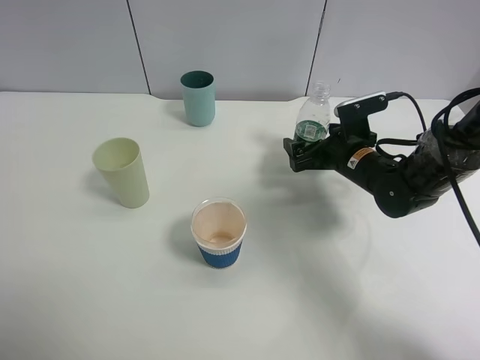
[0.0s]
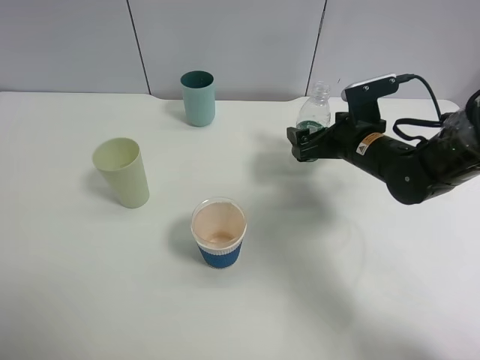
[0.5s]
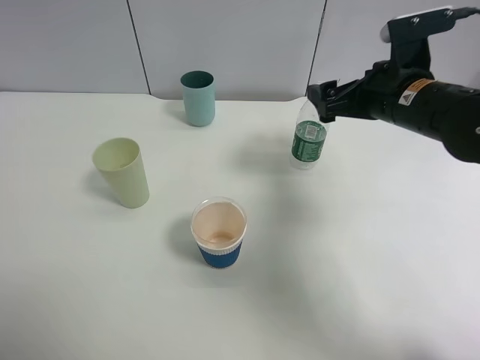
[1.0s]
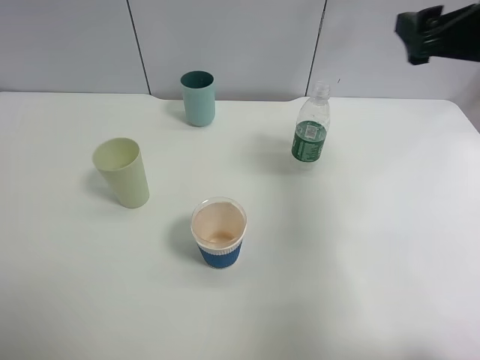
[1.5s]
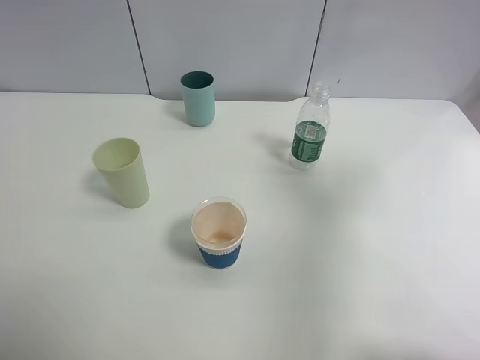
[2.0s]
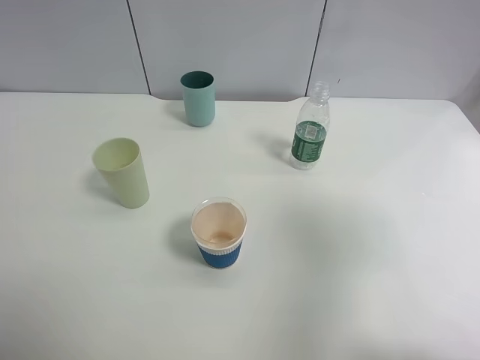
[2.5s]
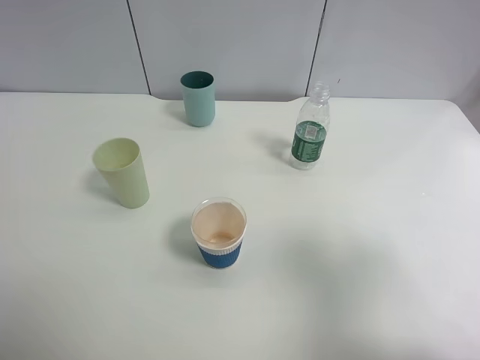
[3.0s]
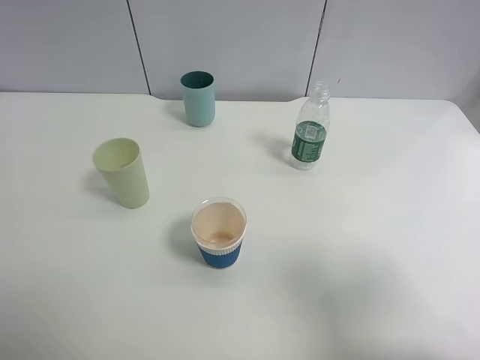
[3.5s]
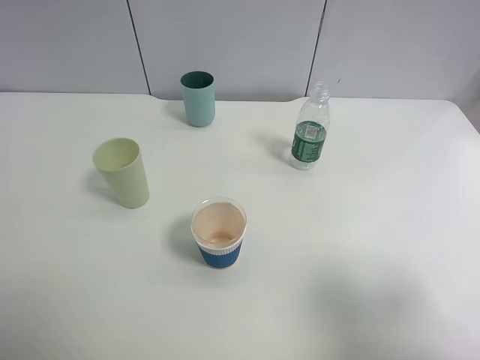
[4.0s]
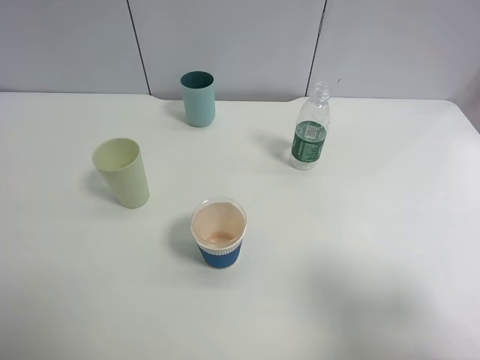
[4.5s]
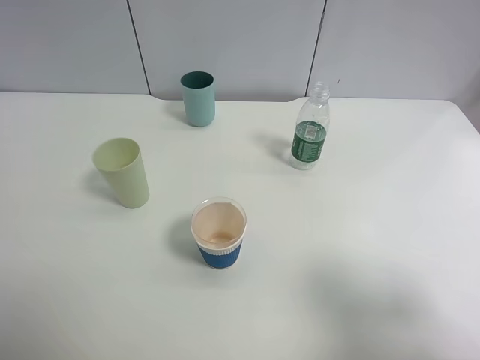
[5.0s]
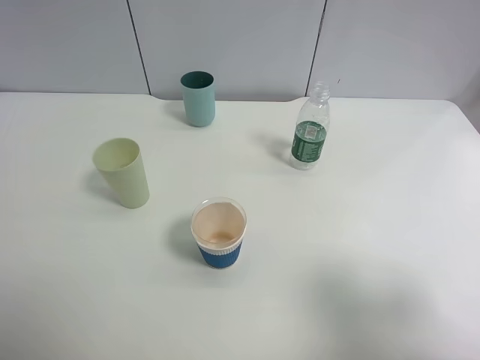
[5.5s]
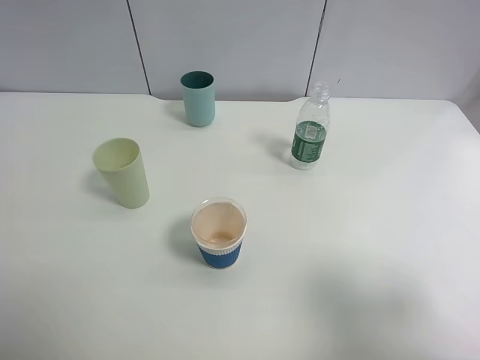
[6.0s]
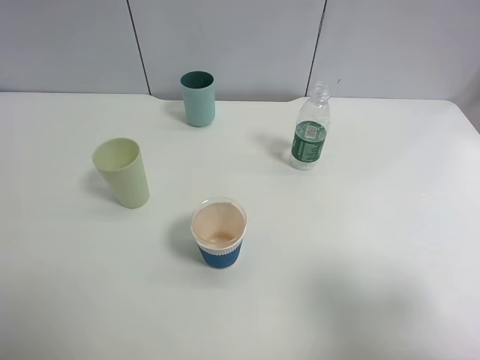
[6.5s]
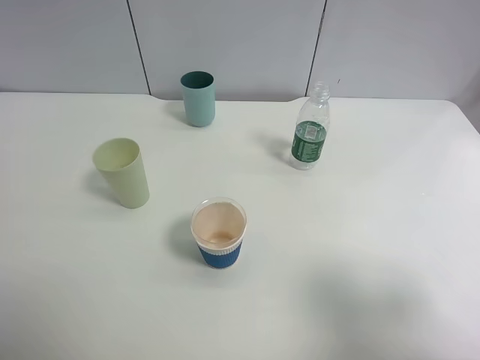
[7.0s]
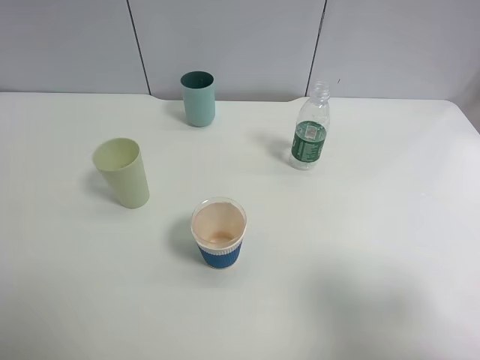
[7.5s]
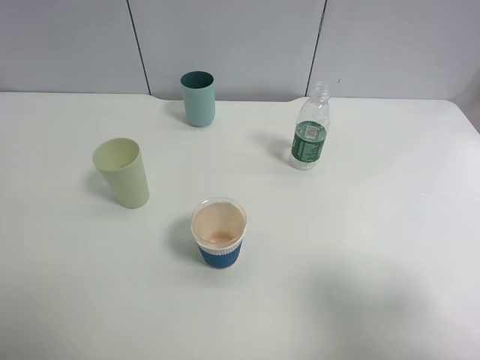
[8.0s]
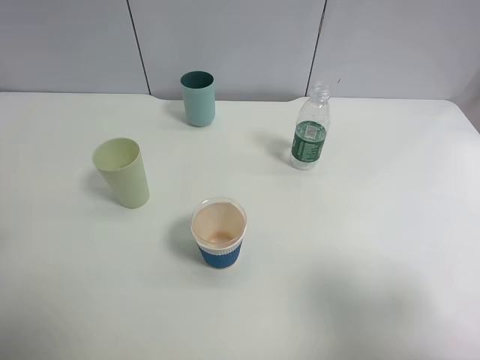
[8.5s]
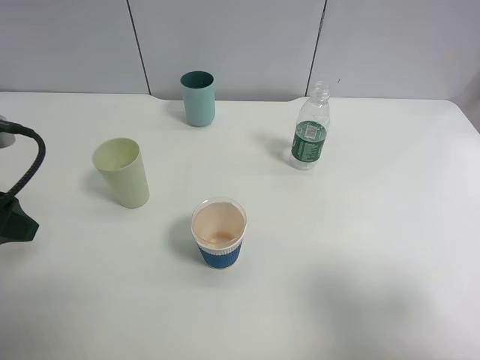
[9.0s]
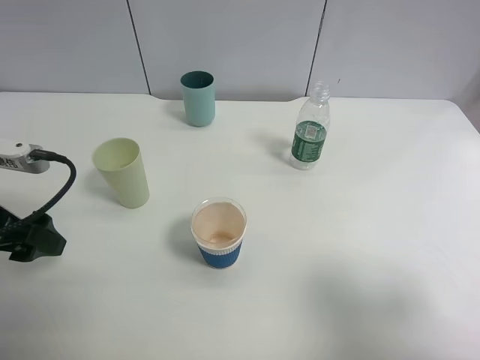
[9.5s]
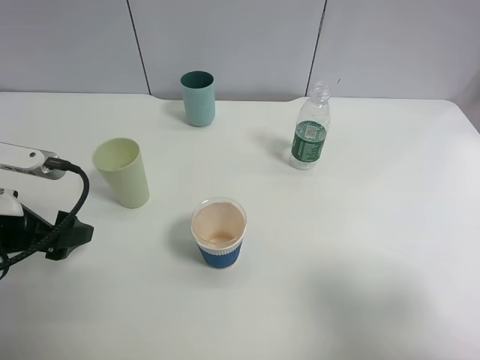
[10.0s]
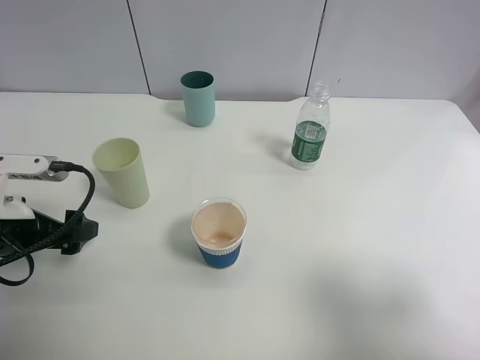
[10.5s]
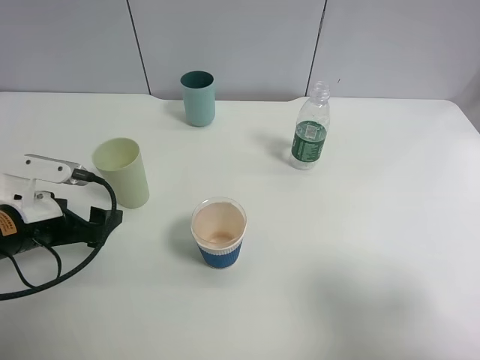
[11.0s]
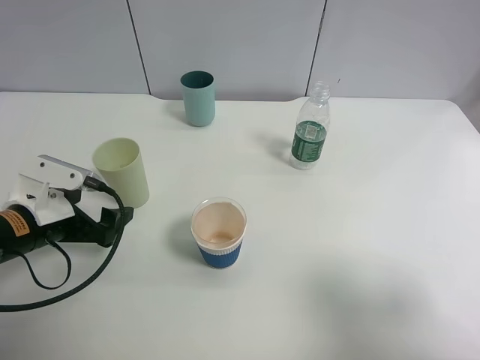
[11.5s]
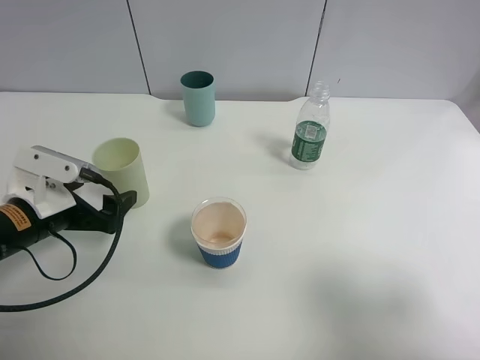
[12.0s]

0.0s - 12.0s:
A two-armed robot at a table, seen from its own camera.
Task of the whole recording: use a clamp to hold the bottle of the drink, pour the beverage into a random cup, then clamp the cup containing the drink and pour the drink into another random cup.
0.0s - 2.0s: The right gripper travels upward, backward and to the right by some 35 cm.
2.0s - 4.0s: The right gripper is displaced backward and downward by some 15 cm.
8.0s - 10.0s: The left gripper shifts roughly 20 cm downward and forward.
10.0s - 12.0s: The left gripper moves downward, approximately 5 cm.

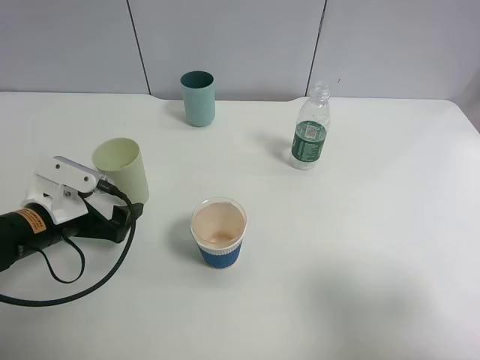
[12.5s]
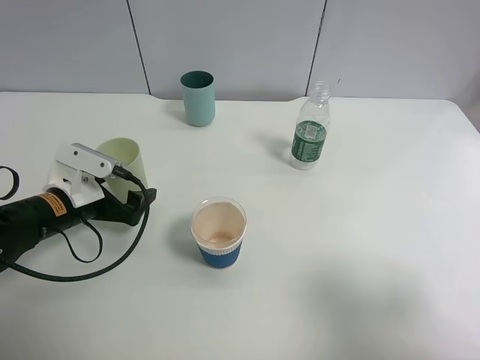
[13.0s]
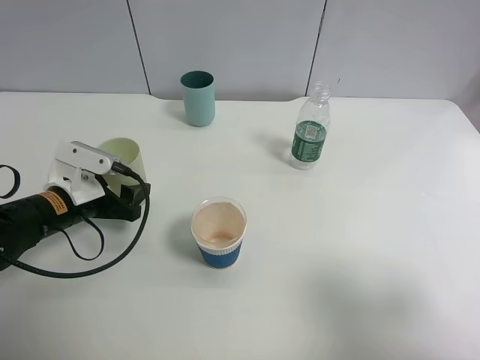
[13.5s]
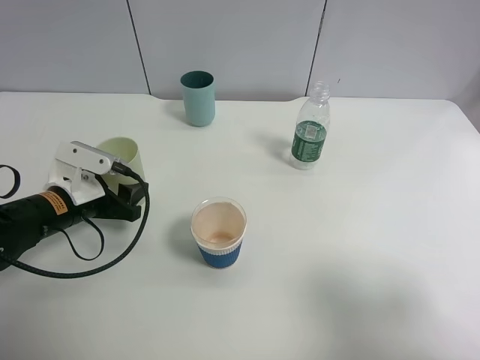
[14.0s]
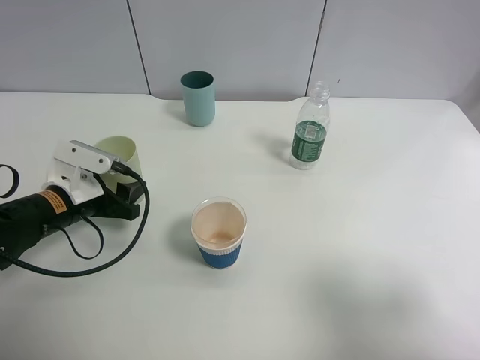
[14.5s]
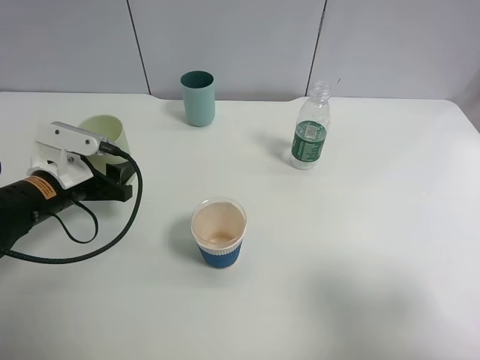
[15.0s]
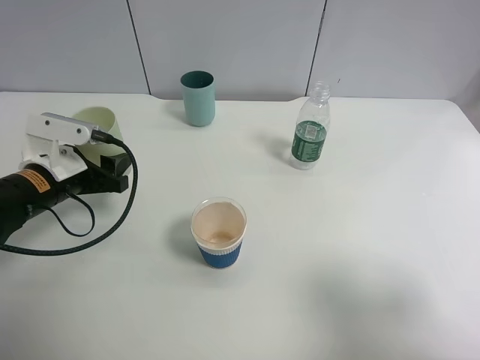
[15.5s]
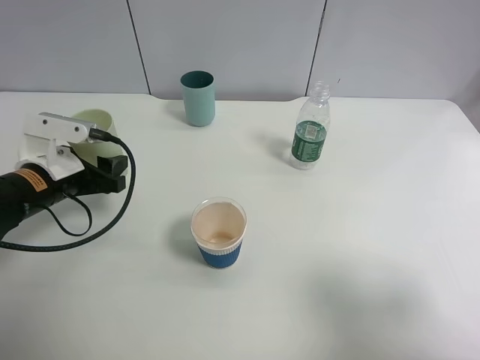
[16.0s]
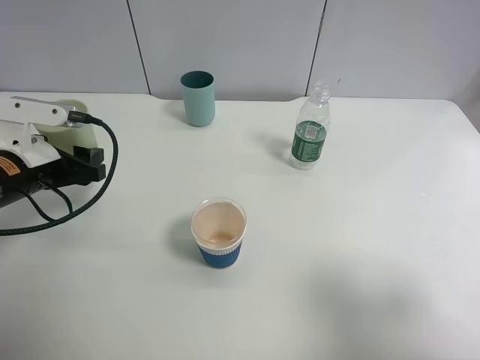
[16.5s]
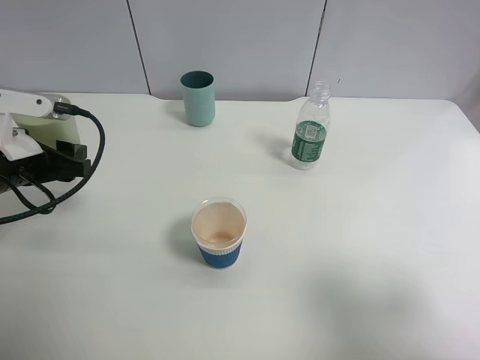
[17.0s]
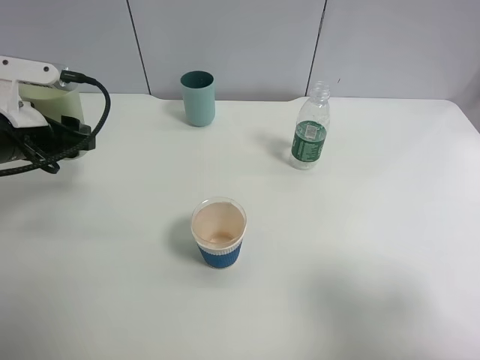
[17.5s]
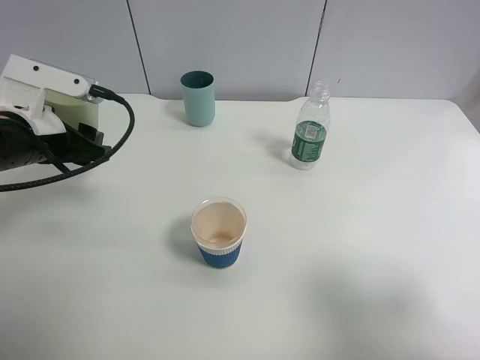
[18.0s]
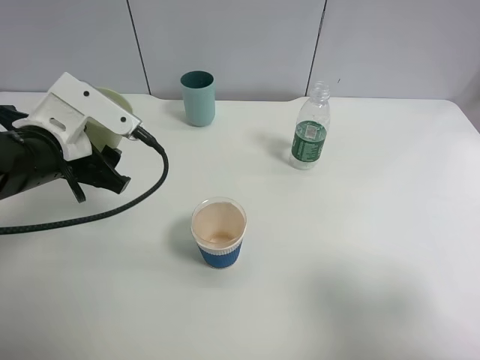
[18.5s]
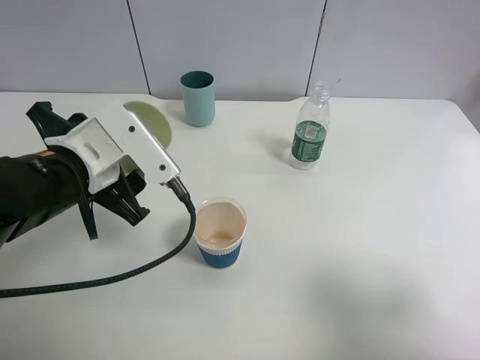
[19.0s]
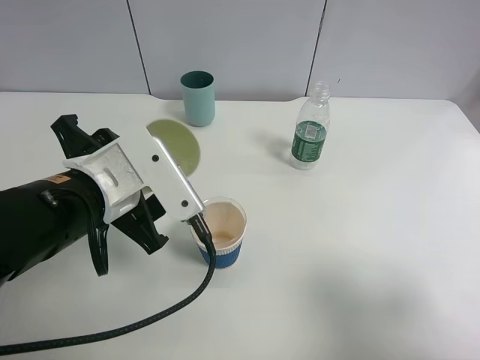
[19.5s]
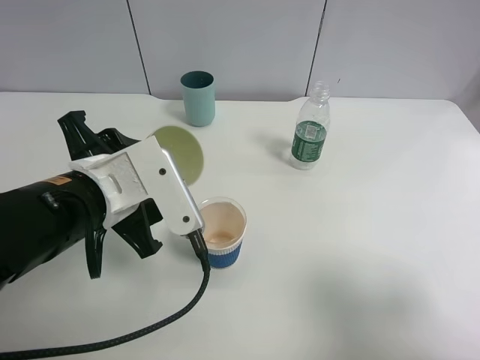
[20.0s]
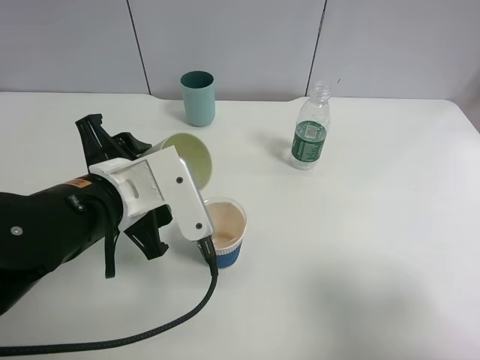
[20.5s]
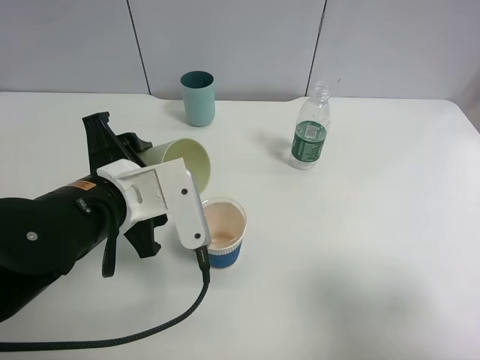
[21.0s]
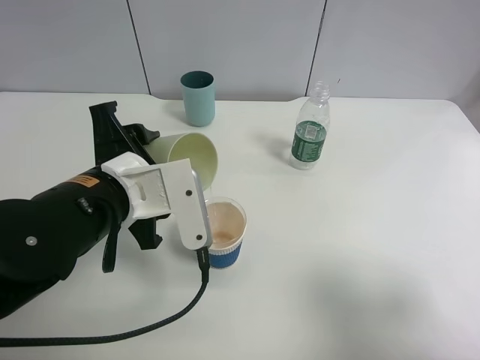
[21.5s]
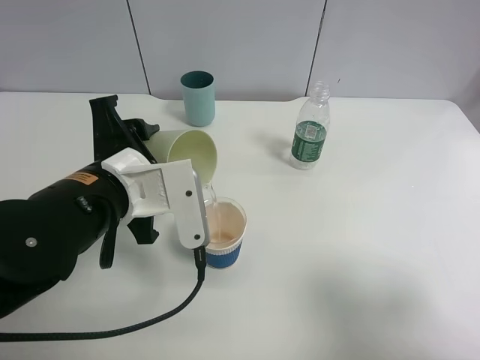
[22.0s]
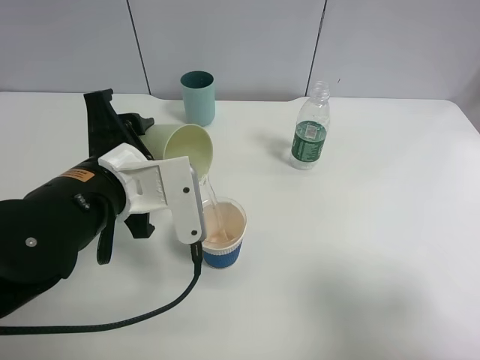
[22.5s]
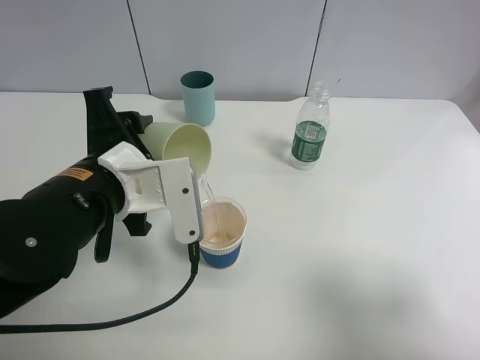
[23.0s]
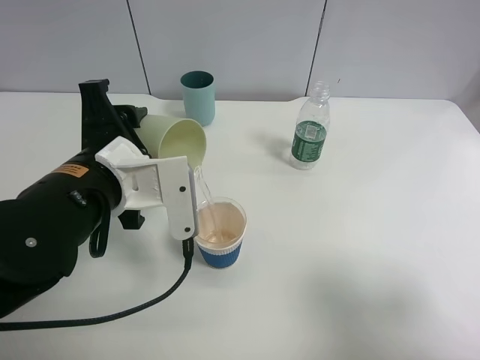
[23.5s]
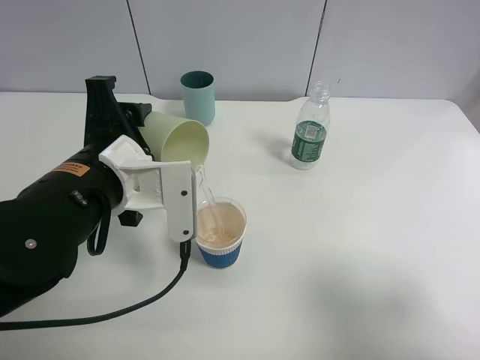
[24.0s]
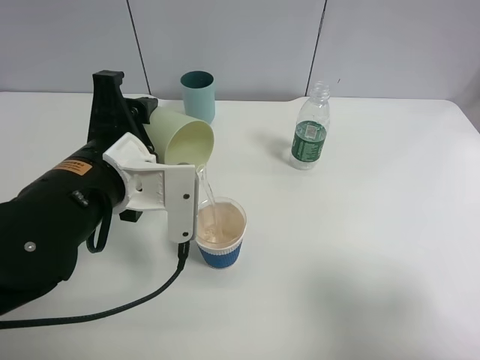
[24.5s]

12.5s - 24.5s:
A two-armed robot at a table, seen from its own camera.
Task of the whole recording: use a clamp to hold the bottle of the drink, pour the beverage into a random cup, then clamp the cup containing the drink and pour the drink into another random cup.
Step, 12.5s - 14.5s: Pick up the green plastic cup bottle with left gripper.
12.5s - 14.5s: The left gripper closes.
14.5s - 16.5s: The left gripper shifts roughly 5 cm upward.
16.5s - 18.5s: The left gripper is displaced to the right by some 5 cm.
18.5s - 20.5s: The left gripper travels to the right and backward by some 10 cm.
20.5s - 22.5s: The grippers stay close to where they were, moving slightly.
22.5s - 24.5s: The grippers move only a little.

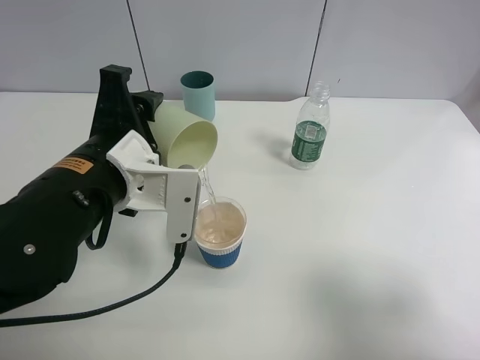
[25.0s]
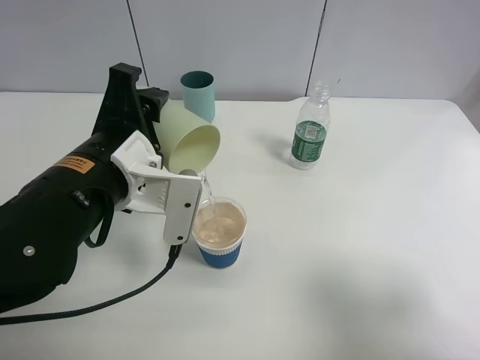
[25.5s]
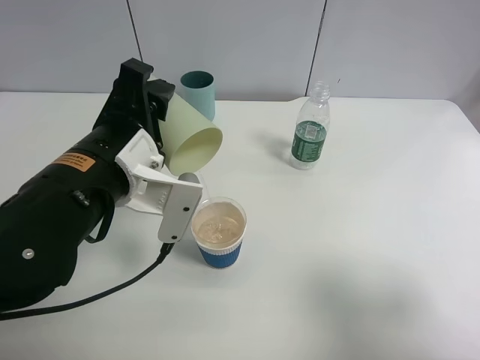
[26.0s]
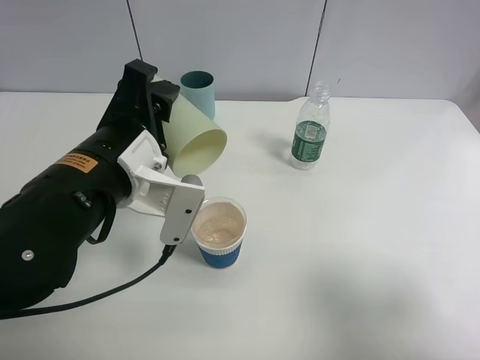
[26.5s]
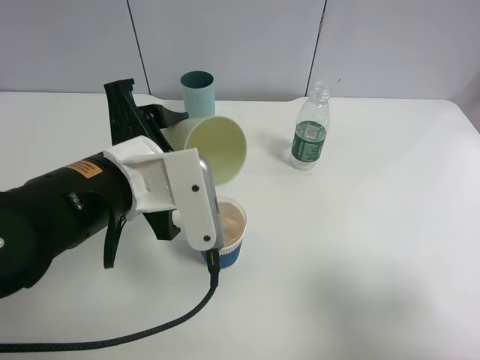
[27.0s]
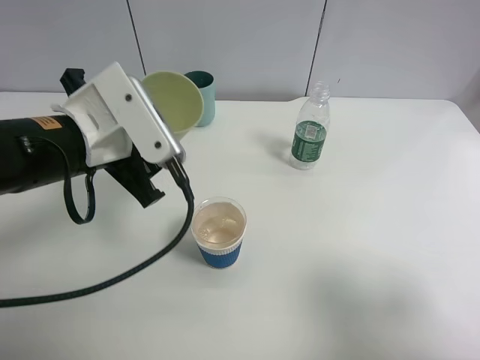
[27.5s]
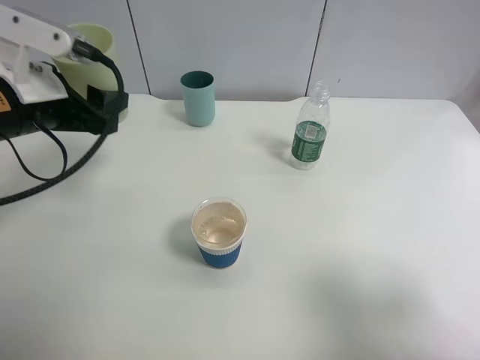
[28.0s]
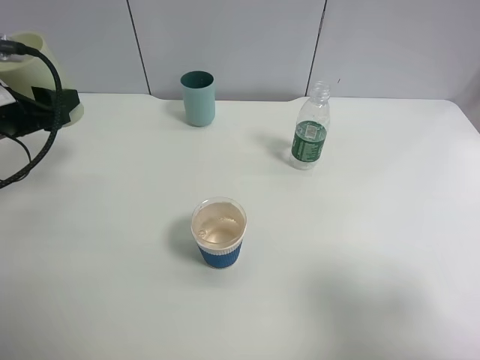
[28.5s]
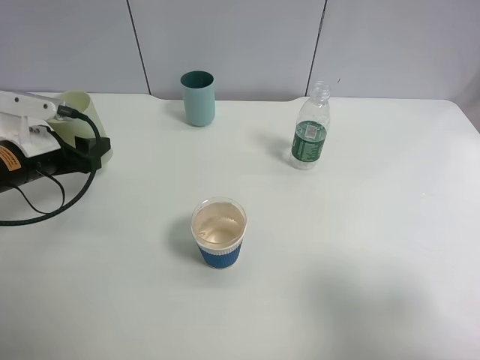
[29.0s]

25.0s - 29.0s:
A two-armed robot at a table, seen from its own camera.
Task of the whole recording: use a clamp to hold the bottle of the drink, pour the beverage into a random cup, then clamp the cup containing the drink and pour the drink into another random cup.
27.0s - 29.0s: The left gripper travels to the left, forward and downward by roughly 25 cm.
